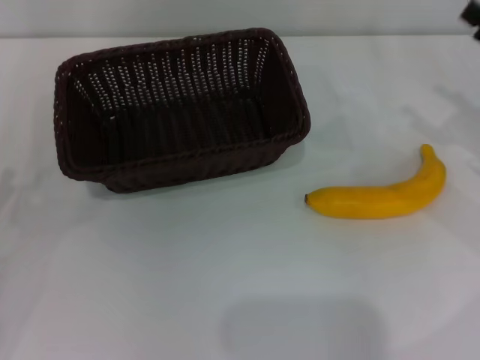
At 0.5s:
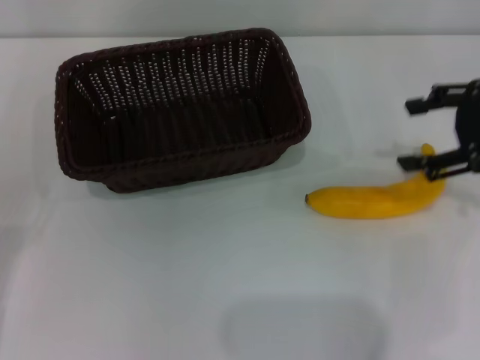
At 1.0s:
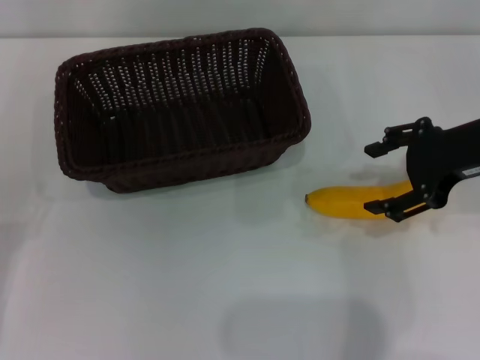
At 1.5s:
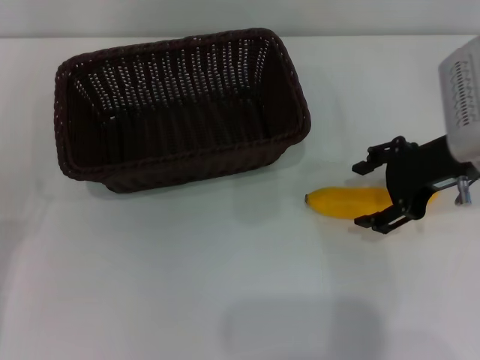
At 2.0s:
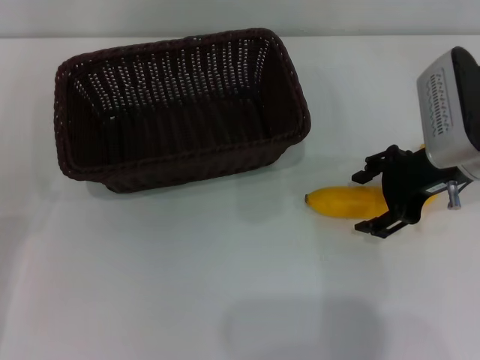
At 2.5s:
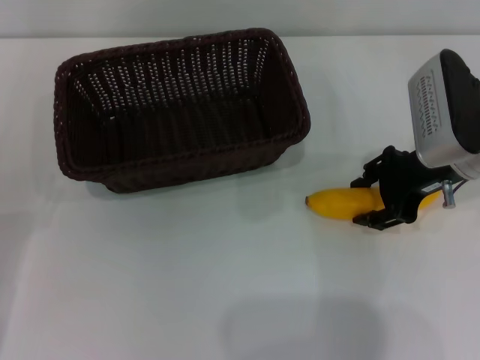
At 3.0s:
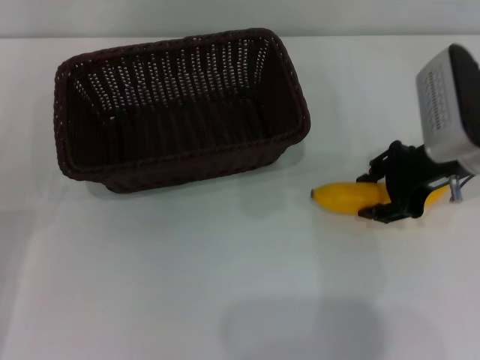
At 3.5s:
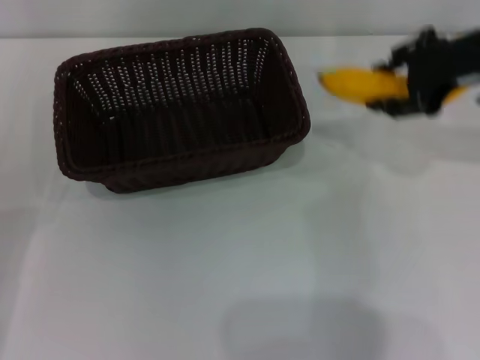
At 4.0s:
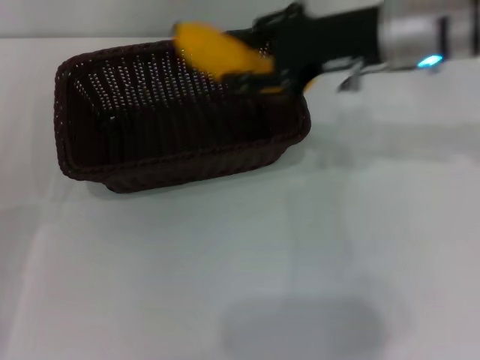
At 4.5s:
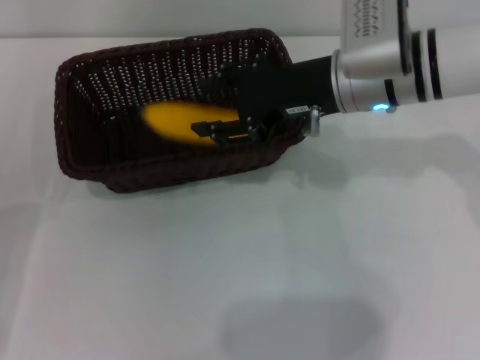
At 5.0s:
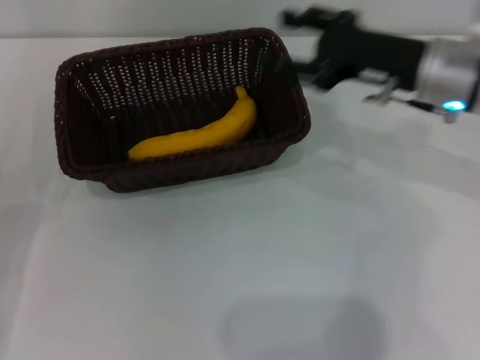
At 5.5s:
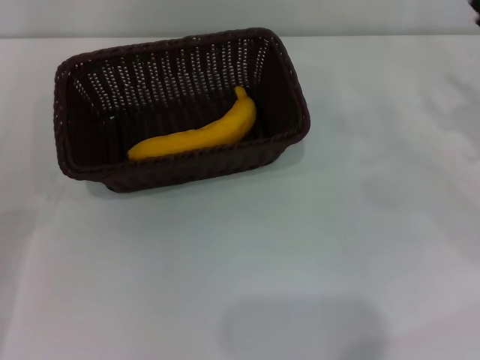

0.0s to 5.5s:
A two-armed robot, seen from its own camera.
Step, 0.0s to 3.0s: Pick up the banana with the right gripper.
Step, 3.5s to 4.5s: Place the banana into the dark basket with the right gripper.
0.0s to 2.0s: The right gripper is displaced to the left by some 15 cm.
2.0s to 3.5s: The right gripper moves upward, roughly 10 cm, and closes up.
3.5s to 5.5s: The right gripper shifts approximately 15 cm downward and to the right, and opens up.

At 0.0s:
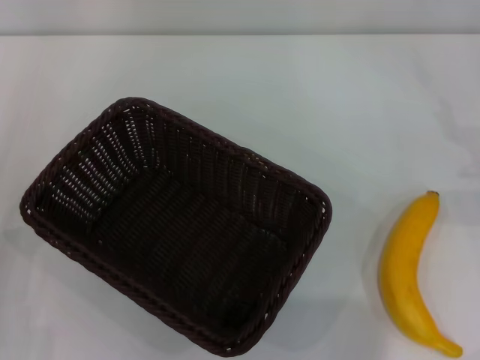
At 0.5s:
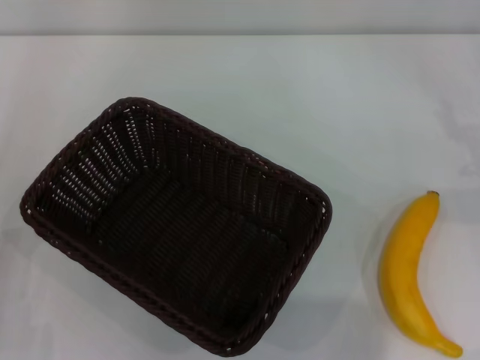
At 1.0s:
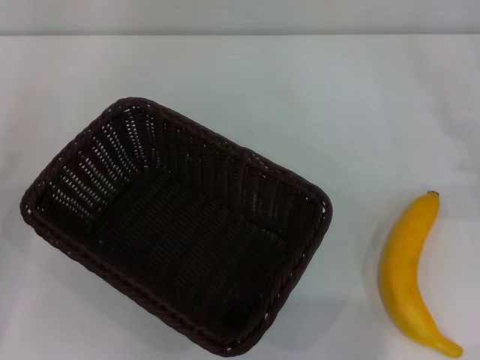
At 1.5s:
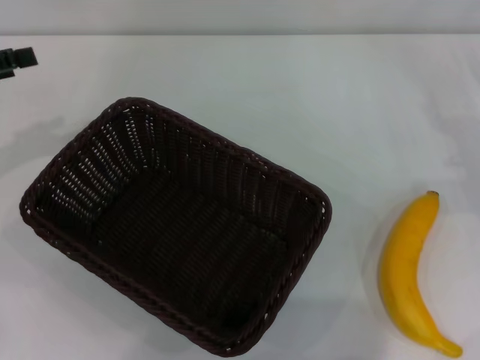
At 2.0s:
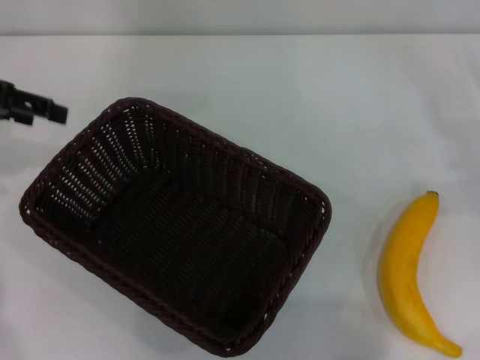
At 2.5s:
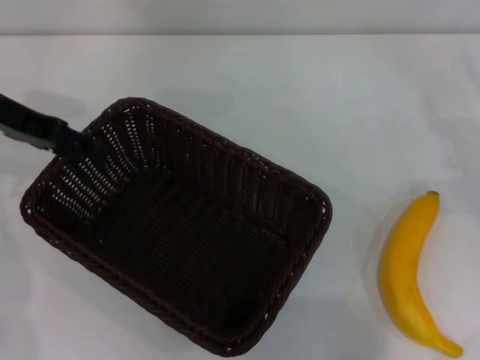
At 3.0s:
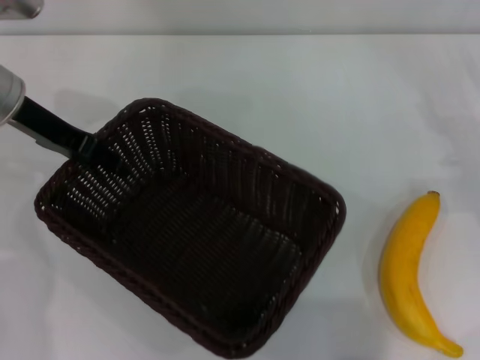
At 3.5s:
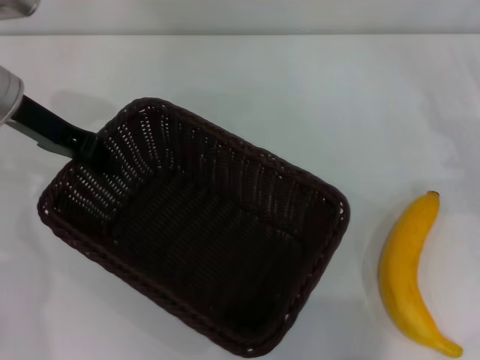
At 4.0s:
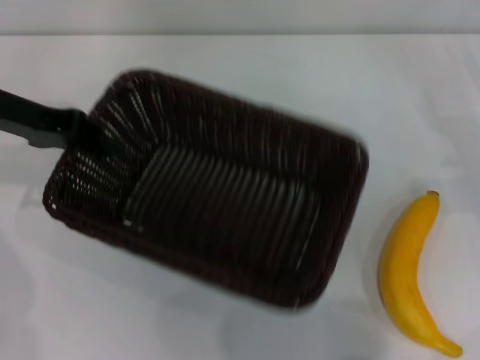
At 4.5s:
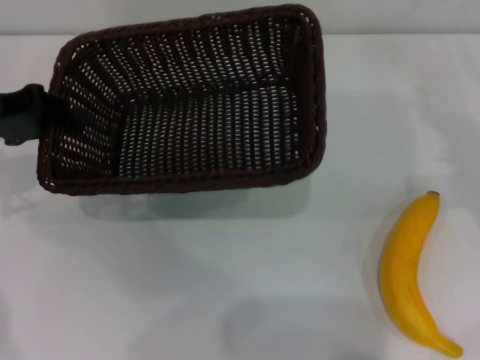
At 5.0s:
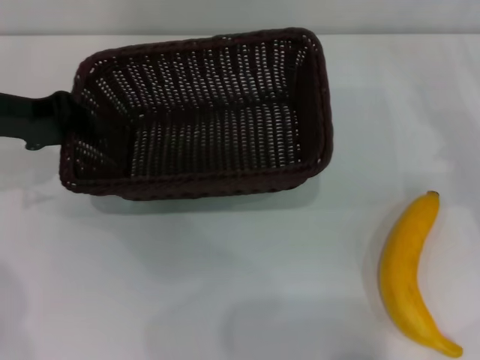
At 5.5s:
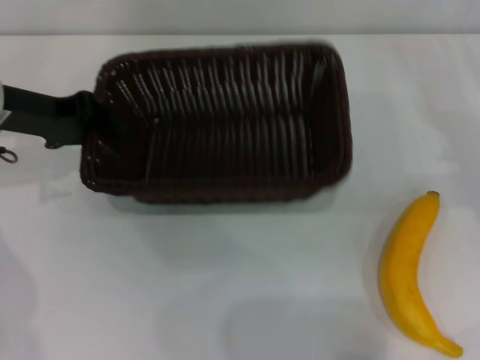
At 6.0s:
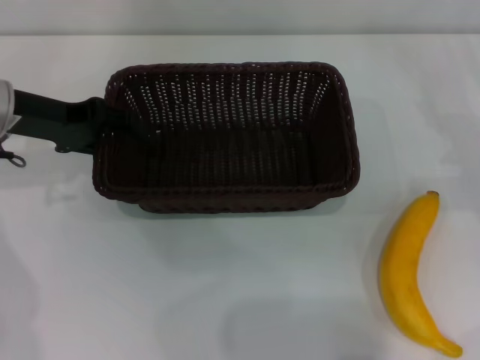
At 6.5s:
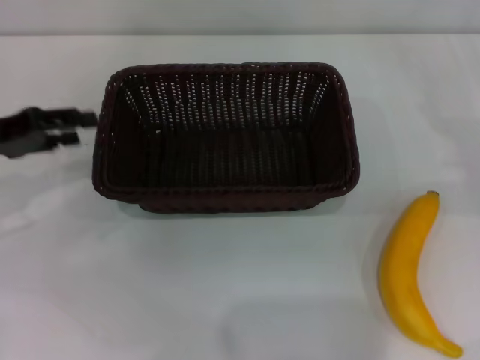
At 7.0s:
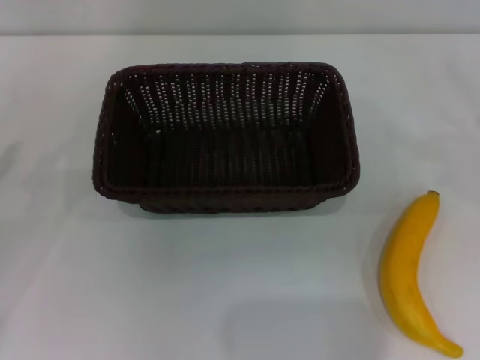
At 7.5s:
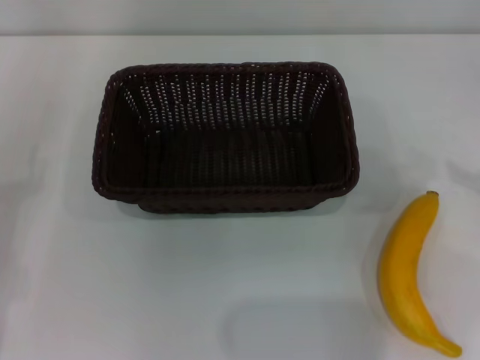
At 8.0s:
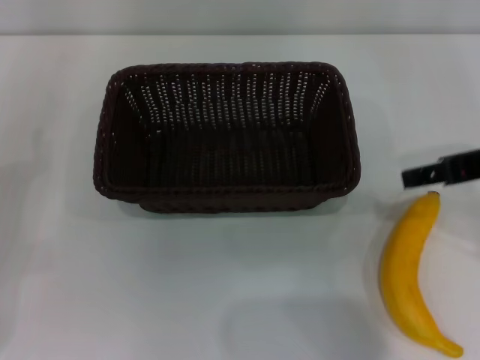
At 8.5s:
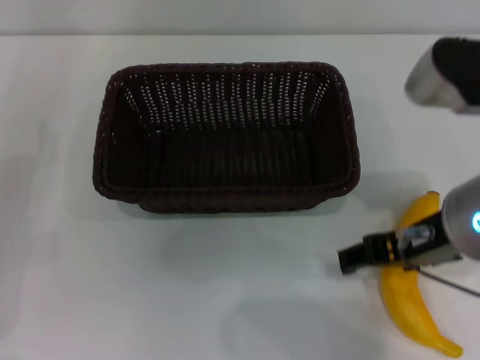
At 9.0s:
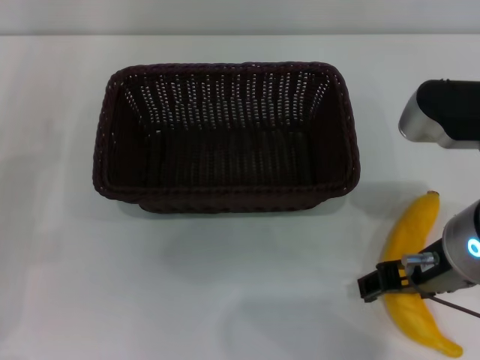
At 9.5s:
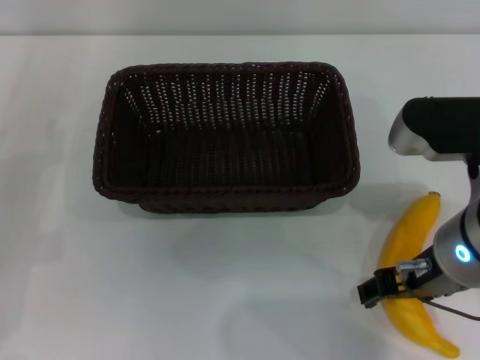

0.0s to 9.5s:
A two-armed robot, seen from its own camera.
Step, 0.0s to 4.0s: Pick up the dark basket with the left gripper.
Step, 4.5s to 6.5s: Place the dark basket in the center of view with the left gripper.
0.0s to 2.0s: The left gripper shifts some 30 cm forward and upward.
2.0s to 4.0s: The left gripper closes its fingers.
5.5s to 7.5s: The right gripper is displaced upward and backward by approximately 15 cm. The left gripper heads backward, downward and to the left, covering some 20 cm, and opens.
7.5s to 9.5s: The right gripper travels to the left by some 20 cm.

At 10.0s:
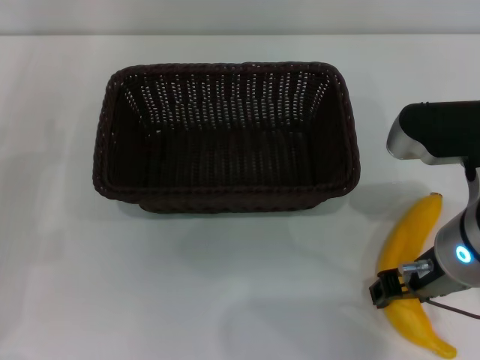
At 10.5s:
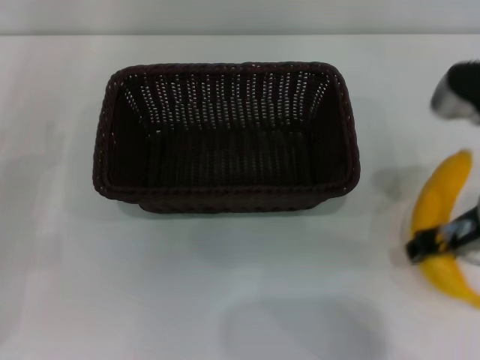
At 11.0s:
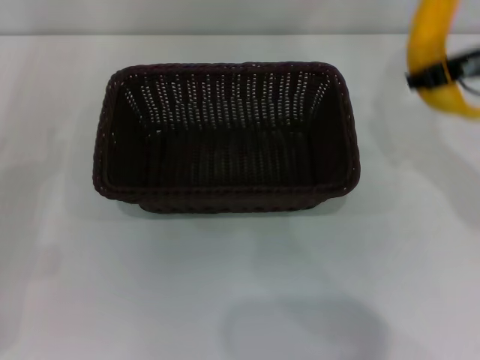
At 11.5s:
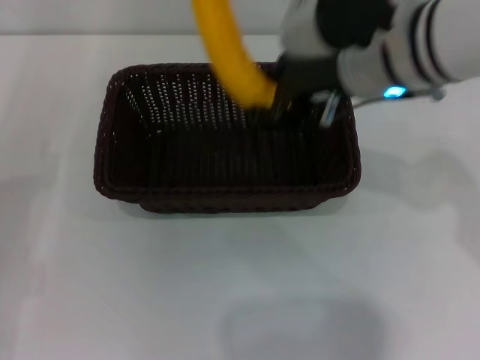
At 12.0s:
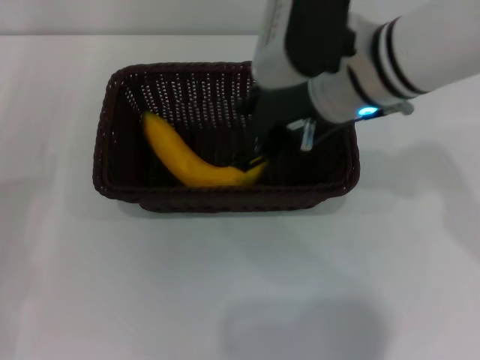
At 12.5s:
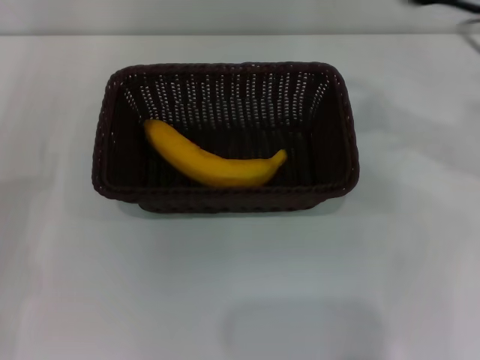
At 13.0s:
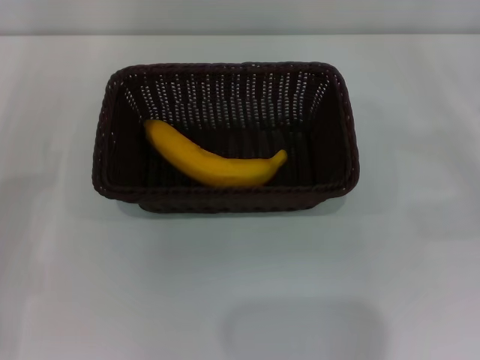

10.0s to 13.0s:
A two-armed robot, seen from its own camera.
Step, 11.0s to 12.0s: Place the banana into the dark basket with the right gripper.
10.0s to 11.5s: The right gripper moves forward, upward and to the left, about 15 cm.
11.5s to 13.0s: The right gripper shifts about 30 cm to the right and downward, and opens.
